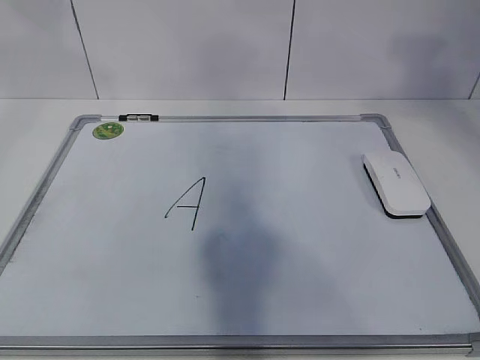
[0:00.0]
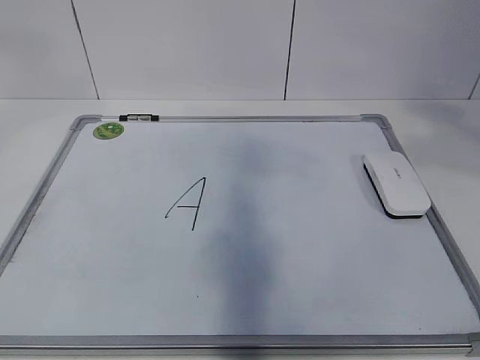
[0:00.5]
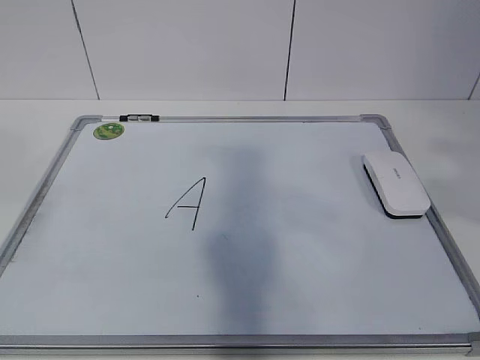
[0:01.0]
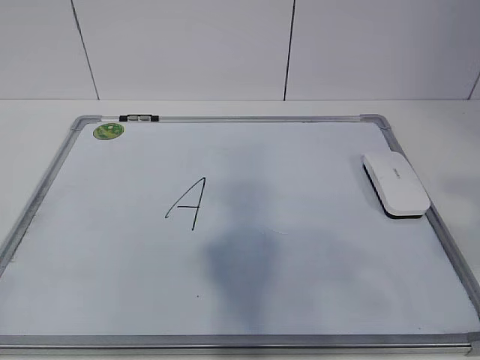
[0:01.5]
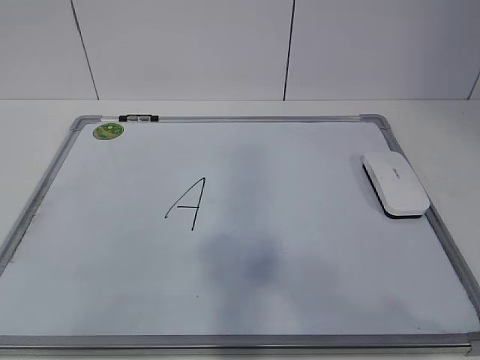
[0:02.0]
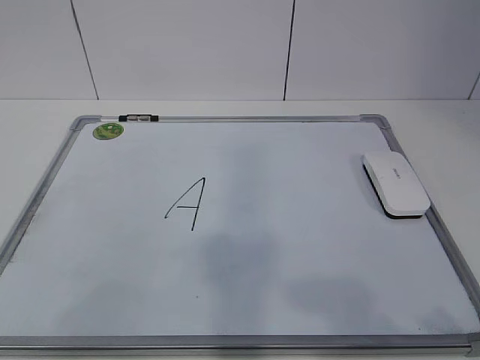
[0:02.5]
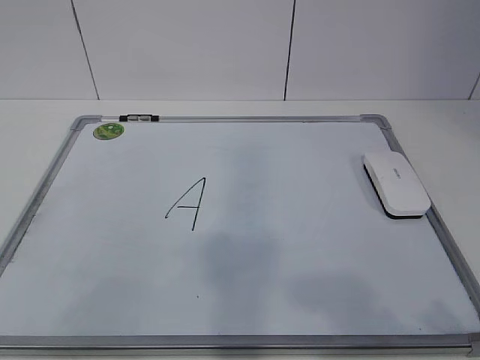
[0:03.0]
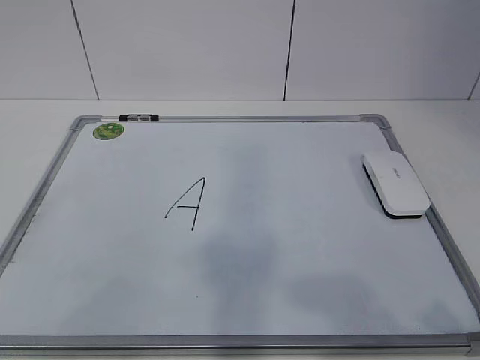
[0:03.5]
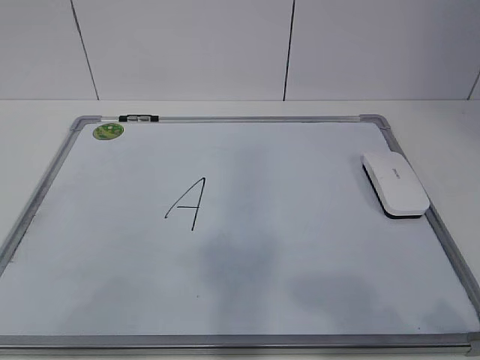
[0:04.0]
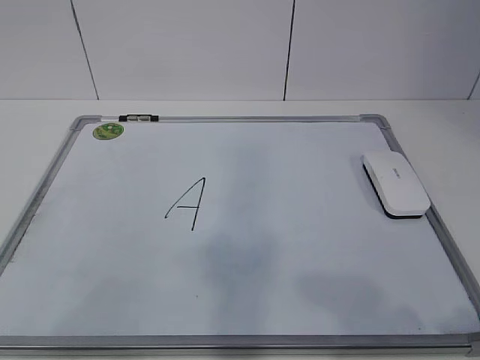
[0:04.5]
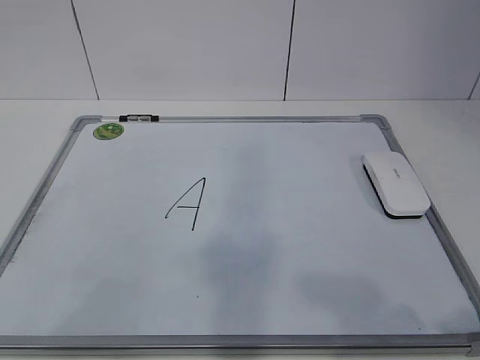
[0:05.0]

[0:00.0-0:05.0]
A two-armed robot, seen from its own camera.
Task of the whole recording: pick up the eraser on the blackboard and erase the letter "a".
0:00.0 to 0:02.5: Both grippers travel together backward and downward, approximately 35 cm.

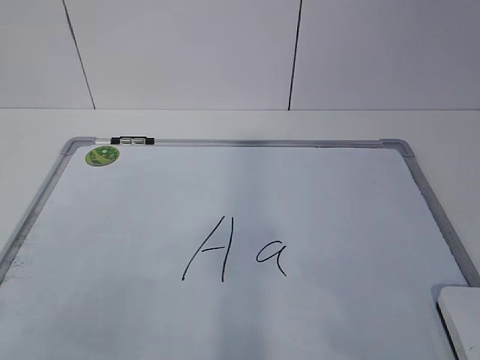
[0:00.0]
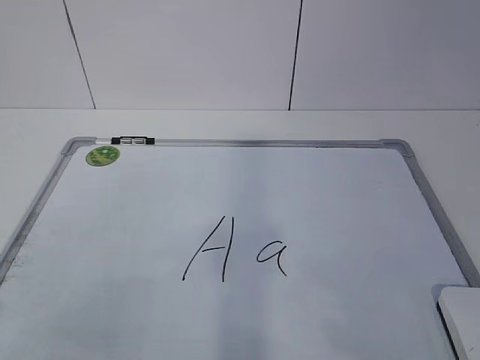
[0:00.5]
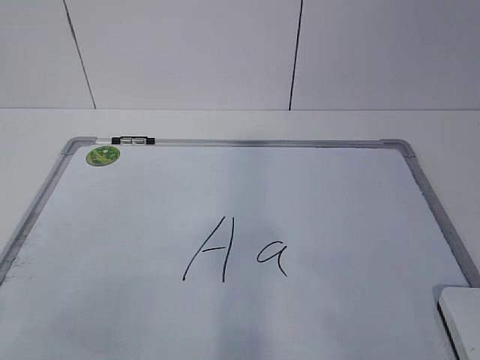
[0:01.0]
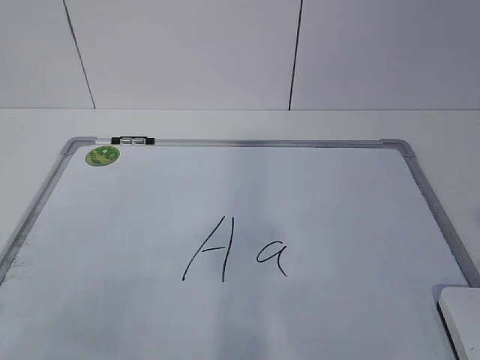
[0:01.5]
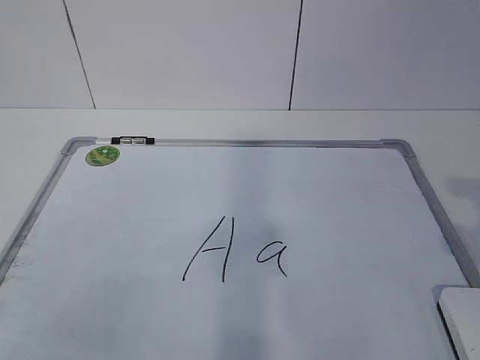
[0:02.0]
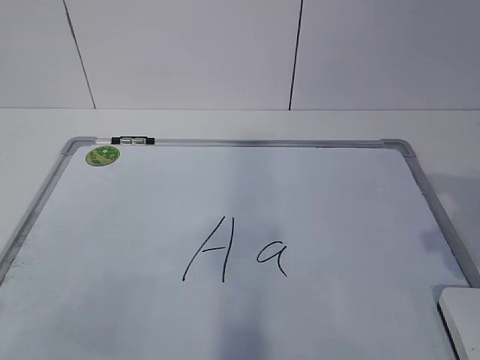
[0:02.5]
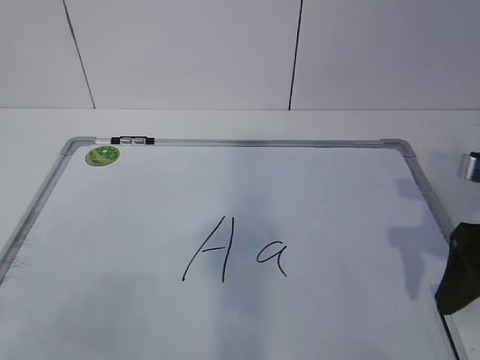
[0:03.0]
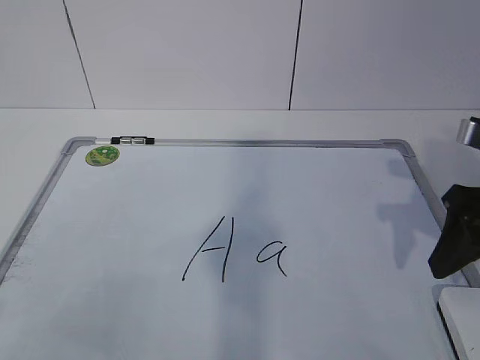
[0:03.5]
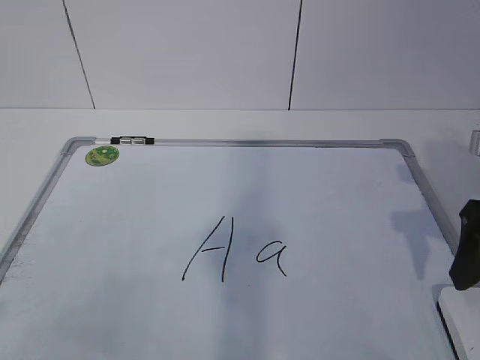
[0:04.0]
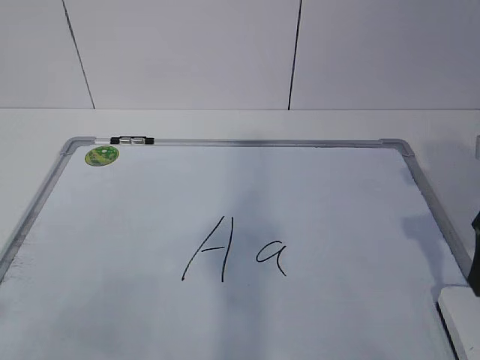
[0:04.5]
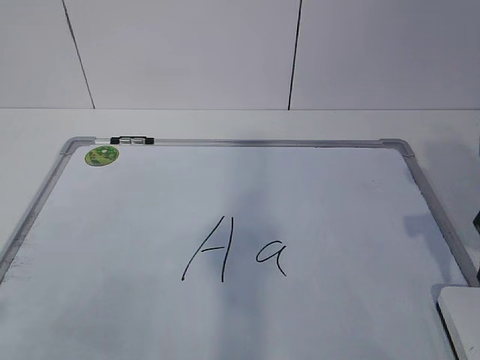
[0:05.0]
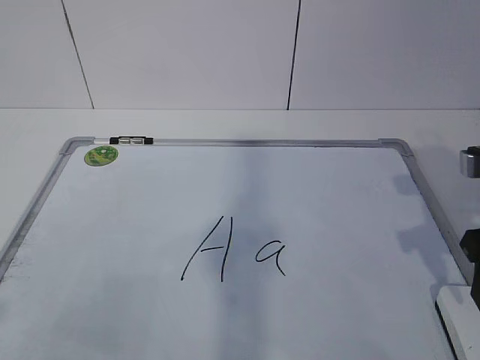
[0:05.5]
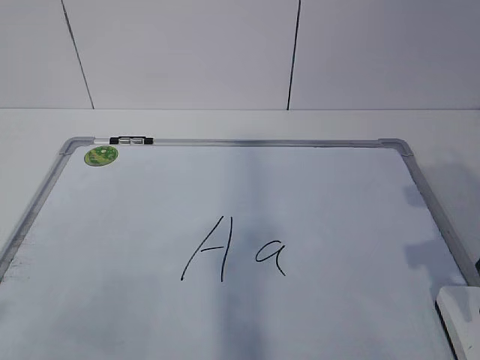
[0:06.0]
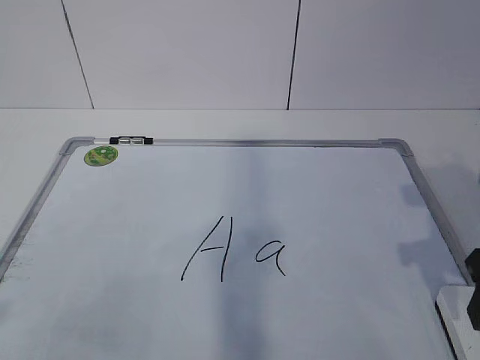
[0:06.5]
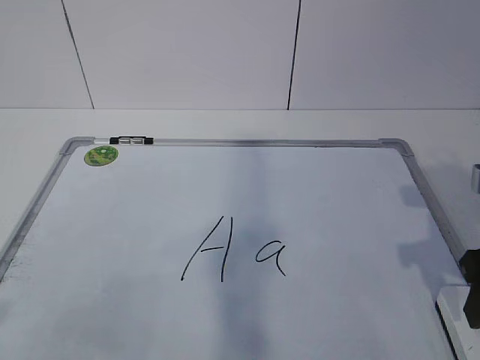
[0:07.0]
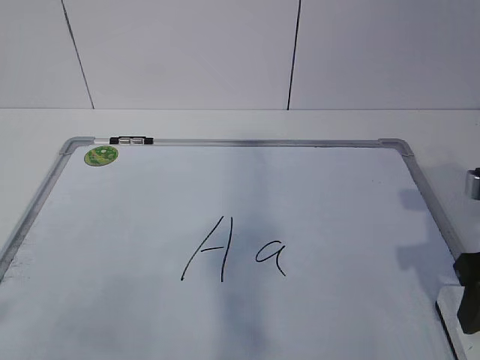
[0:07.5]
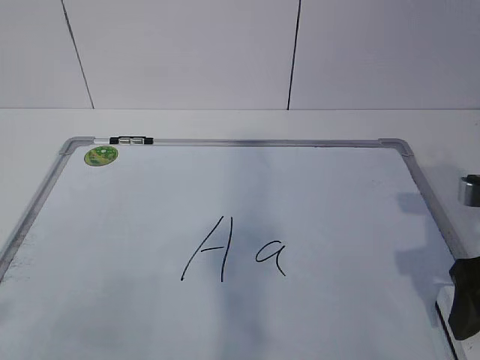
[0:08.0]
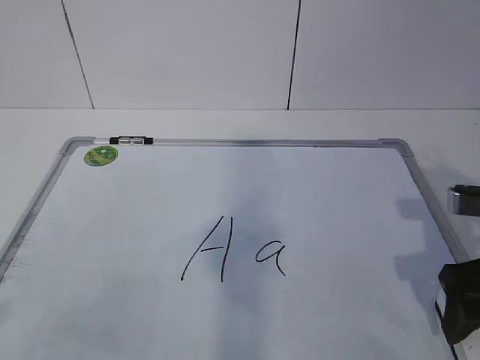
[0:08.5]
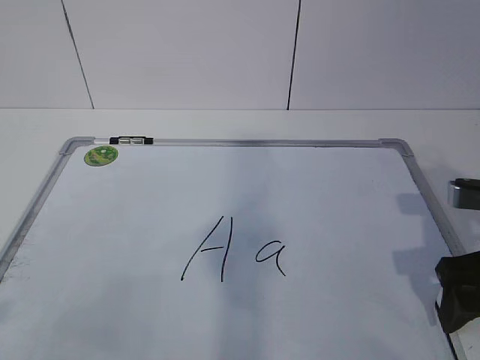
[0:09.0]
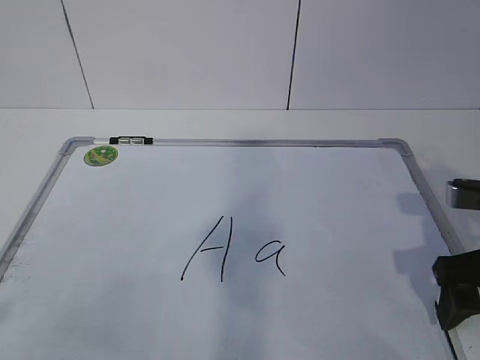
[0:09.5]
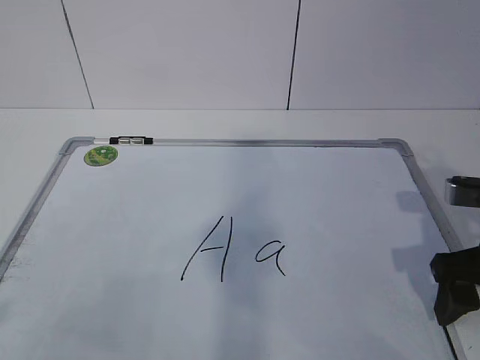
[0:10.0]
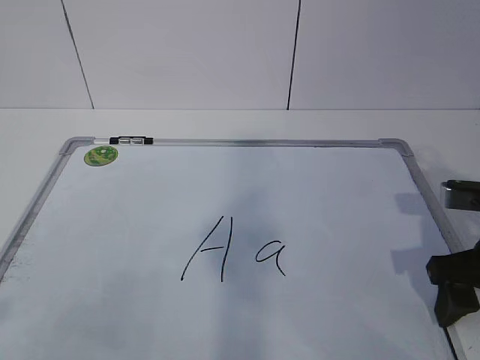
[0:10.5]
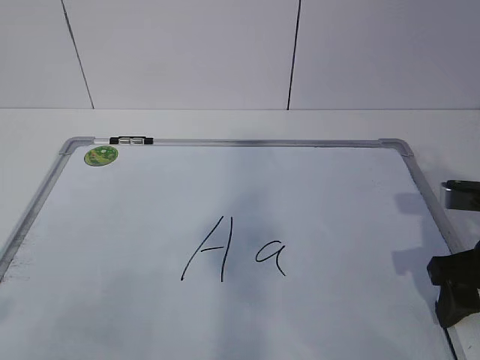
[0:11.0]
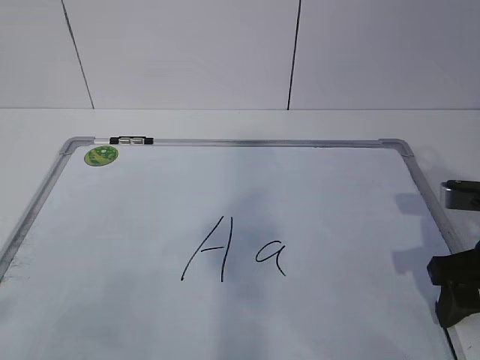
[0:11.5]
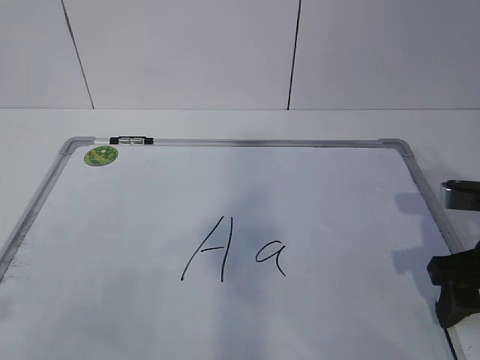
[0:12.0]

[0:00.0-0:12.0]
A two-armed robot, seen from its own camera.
Task of the whole recording: pick up the eraser on the blackboard and erase the letter "a".
Step, 0:00.0 to 0:10.0: Grab the eraser with your right hand.
0:02.0 to 0:04.0: The right gripper goes about 10 cm forward, and opens.
0:04.0 to 0:06.0: The right gripper closes up.
0:06.0 to 0:08.0: The right gripper opens its fingers.
0:08.0 to 0:10.0: The grippers make only small movements.
0:10.0 to 0:12.0: The right gripper closes.

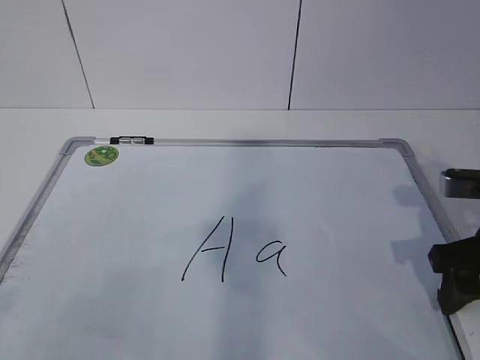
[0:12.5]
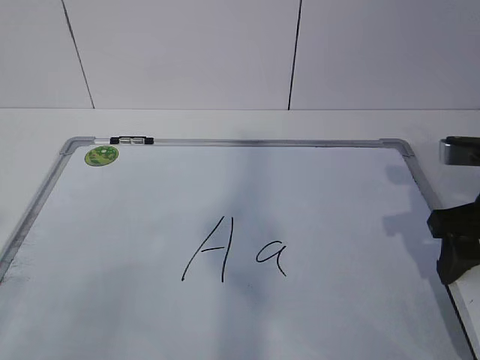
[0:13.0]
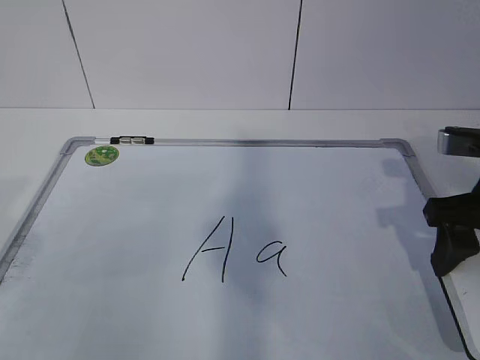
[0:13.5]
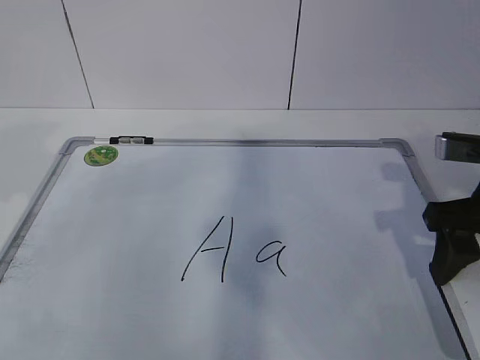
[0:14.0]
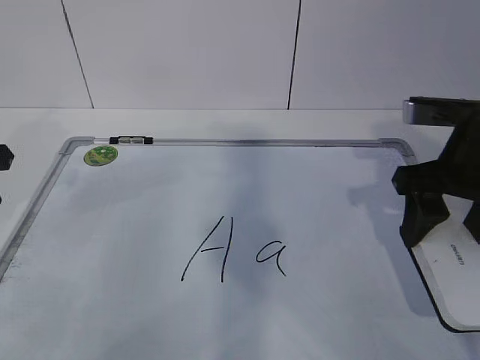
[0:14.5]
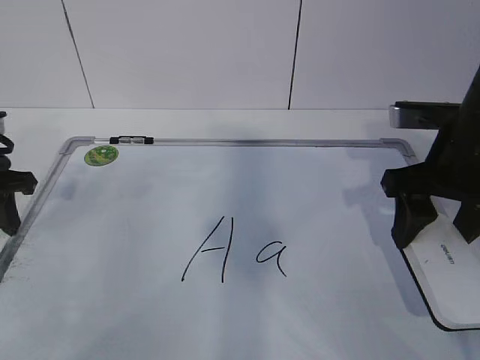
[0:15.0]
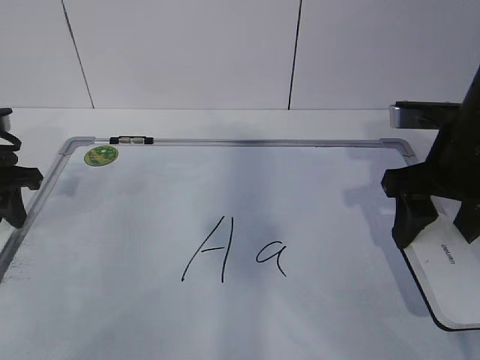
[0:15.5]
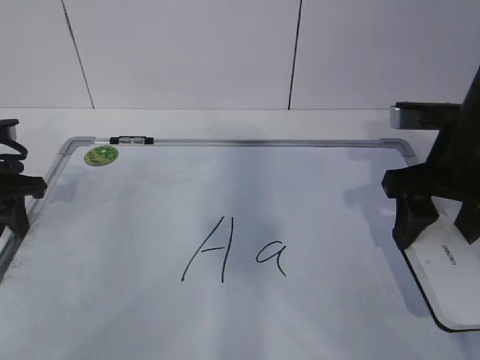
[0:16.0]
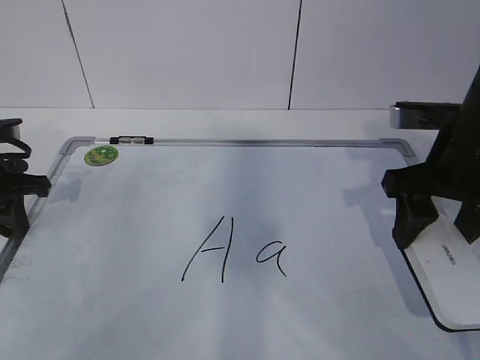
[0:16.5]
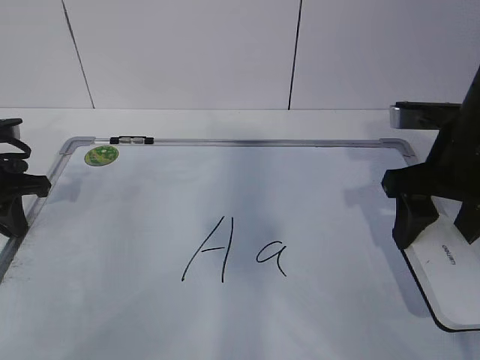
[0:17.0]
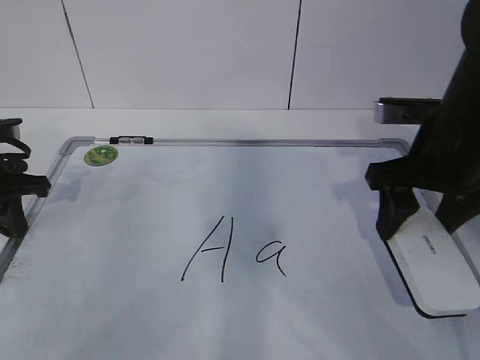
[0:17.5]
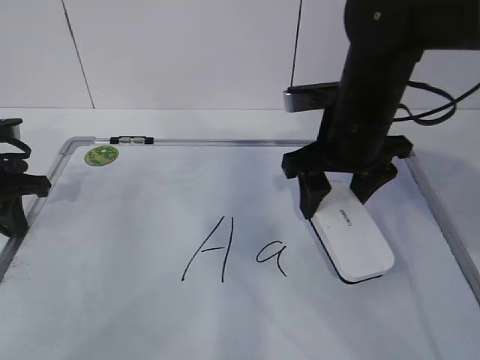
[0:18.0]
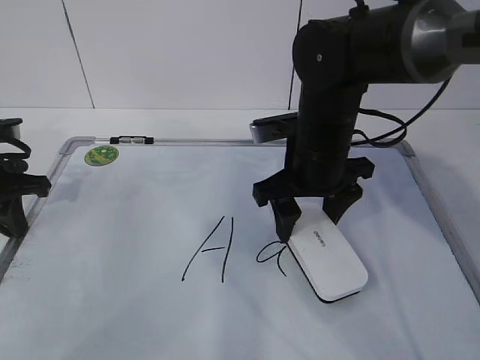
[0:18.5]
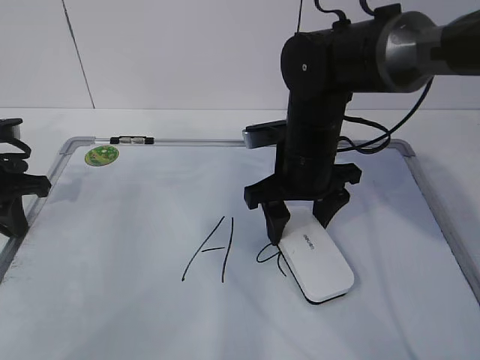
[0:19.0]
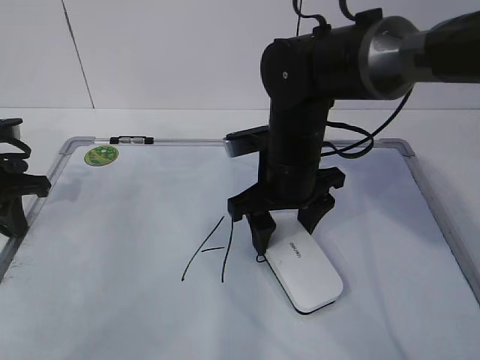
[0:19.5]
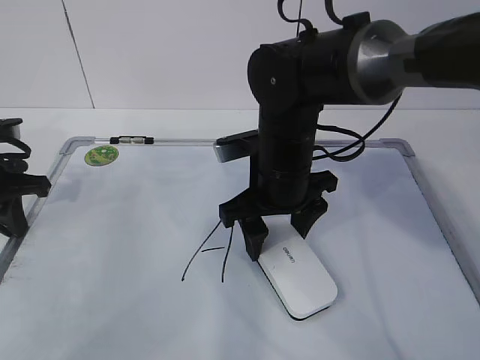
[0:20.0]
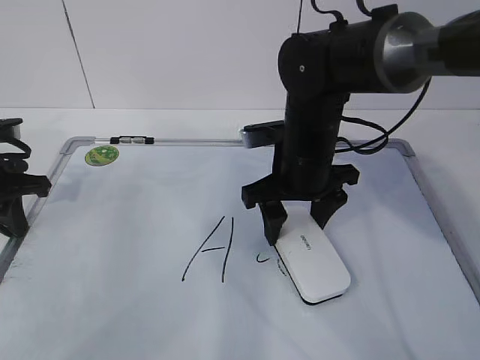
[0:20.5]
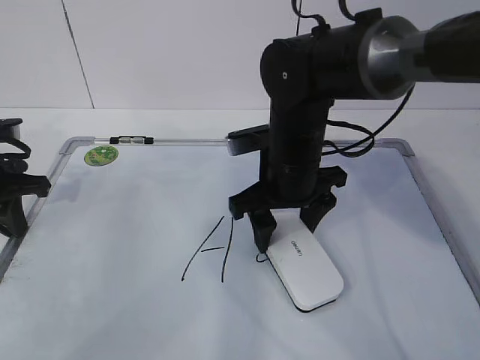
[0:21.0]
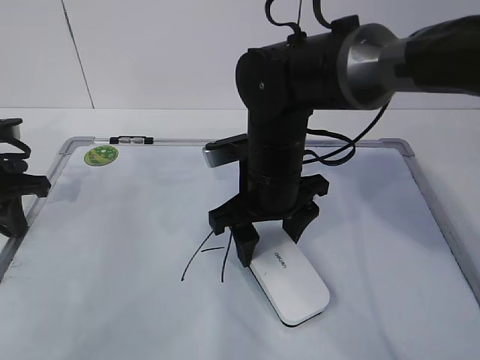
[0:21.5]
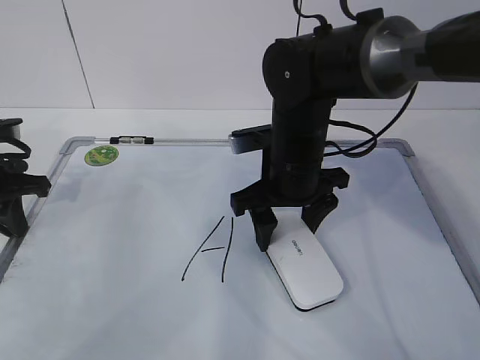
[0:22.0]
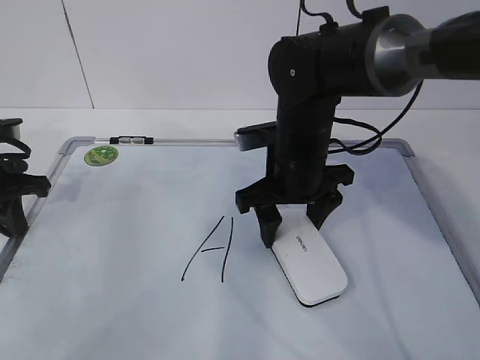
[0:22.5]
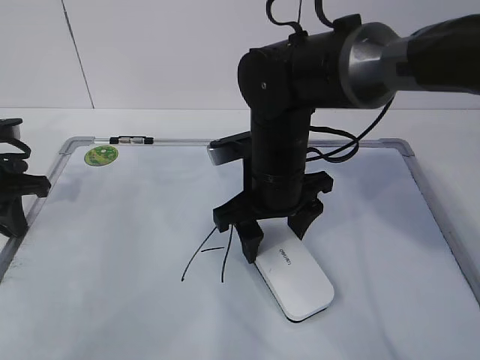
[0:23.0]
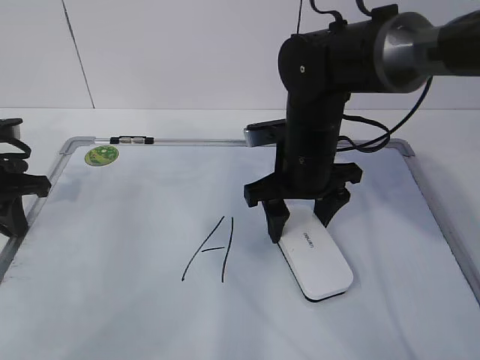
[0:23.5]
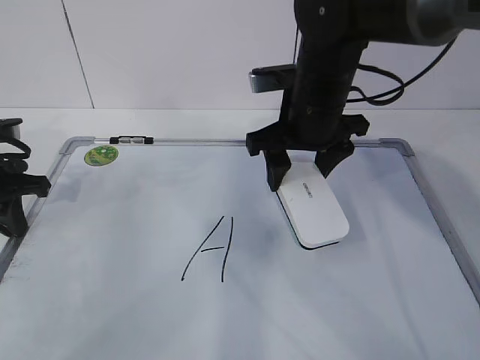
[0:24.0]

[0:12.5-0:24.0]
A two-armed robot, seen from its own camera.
Task of the whole recording: pick up the eraser on the blackboard and erase the letter "a".
Step, 0:14.0 to 0:19.5: Erase the letter a with your right hand.
0:12.5 to 0:14.5: The right gripper travels upward by approximately 5 cm, while the left gripper moves forward, approximately 30 cm.
0:14.5 to 0:16.5: The left gripper is displaced downward by about 5 cm, and closes up.
0:16.5 to 0:18.5: The right gripper shifts some 15 cm to the left and forward.
0:18.5 to 0:22.0: There are only small adjustments of the grippers.
0:22.0 to 0:24.0: The right gripper heads upward, covering some 5 cm.
